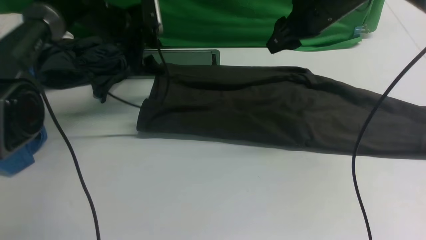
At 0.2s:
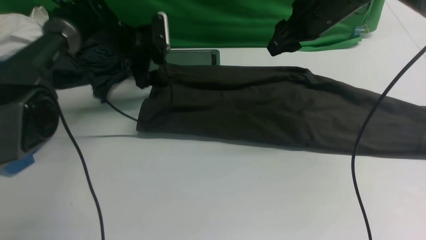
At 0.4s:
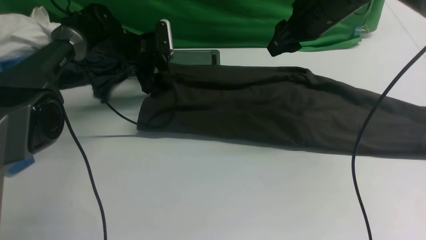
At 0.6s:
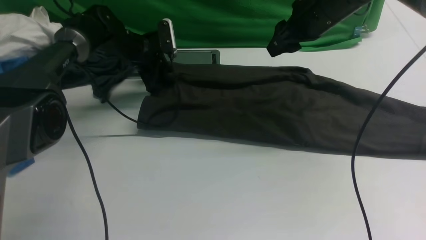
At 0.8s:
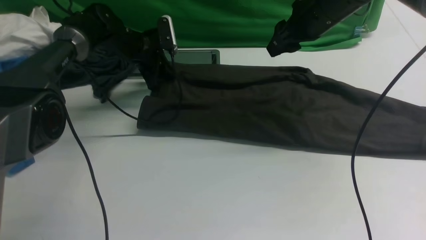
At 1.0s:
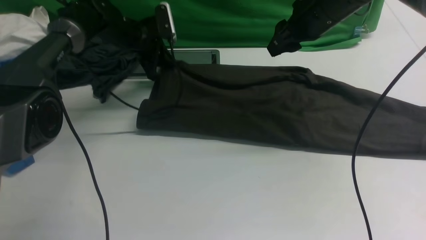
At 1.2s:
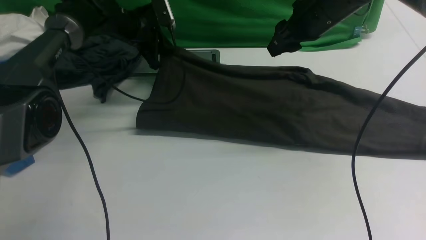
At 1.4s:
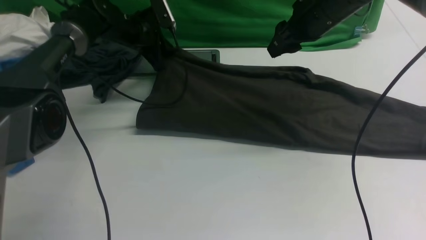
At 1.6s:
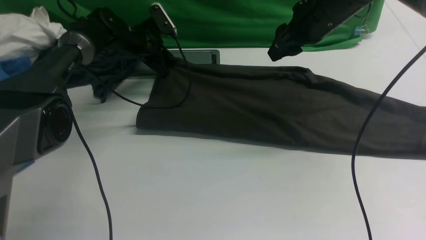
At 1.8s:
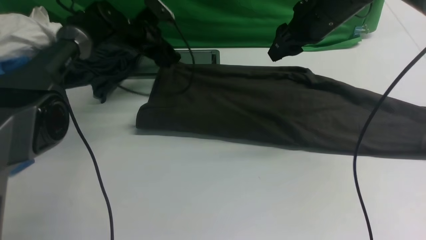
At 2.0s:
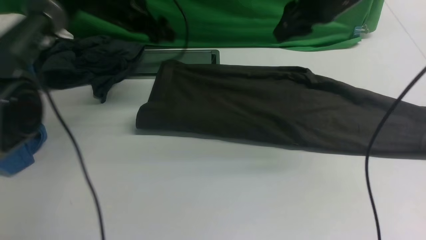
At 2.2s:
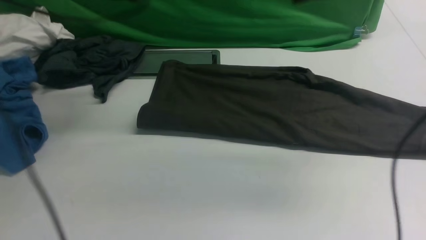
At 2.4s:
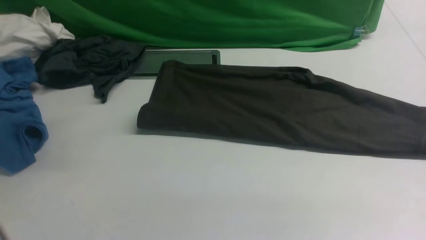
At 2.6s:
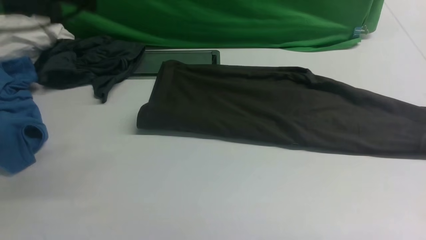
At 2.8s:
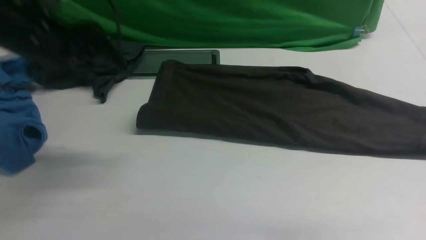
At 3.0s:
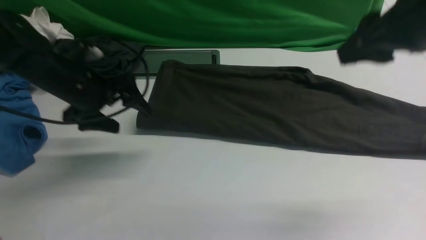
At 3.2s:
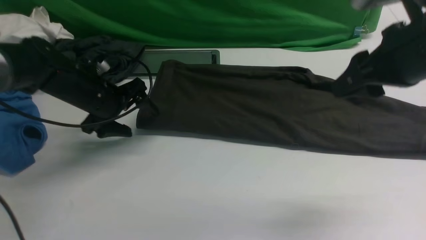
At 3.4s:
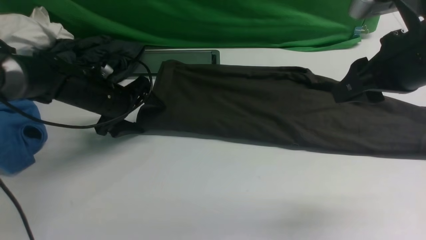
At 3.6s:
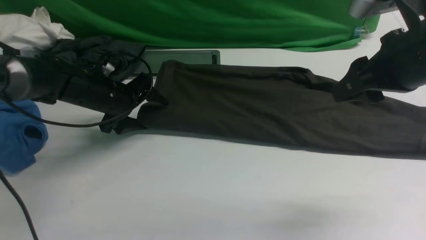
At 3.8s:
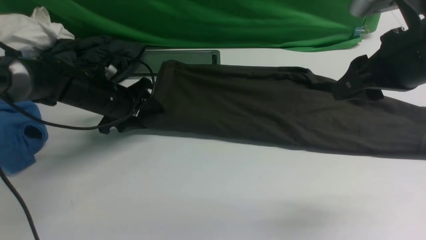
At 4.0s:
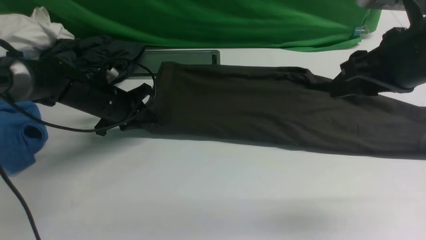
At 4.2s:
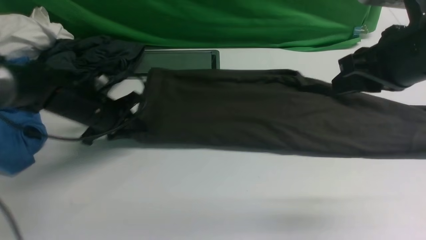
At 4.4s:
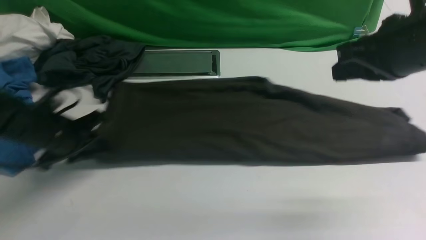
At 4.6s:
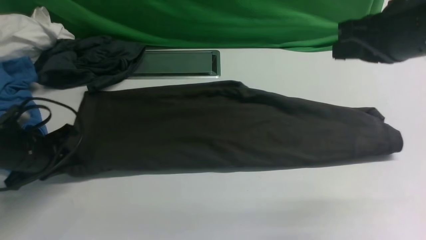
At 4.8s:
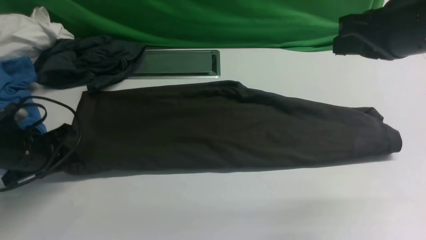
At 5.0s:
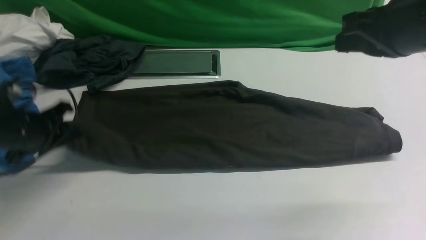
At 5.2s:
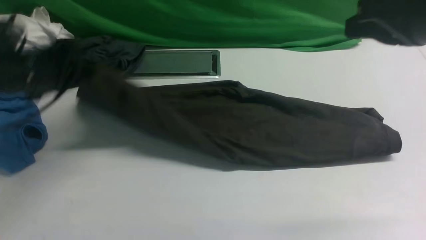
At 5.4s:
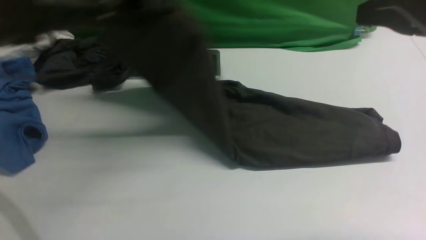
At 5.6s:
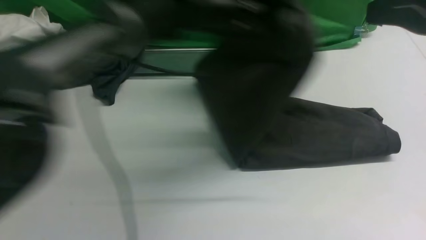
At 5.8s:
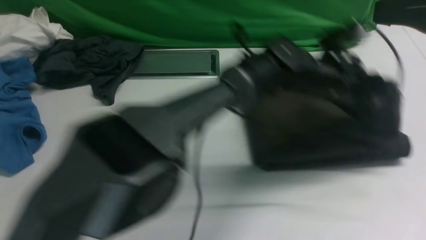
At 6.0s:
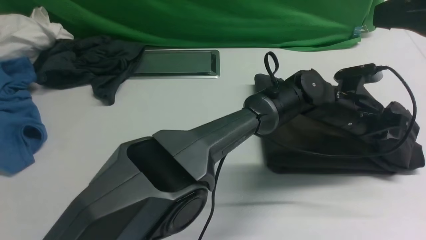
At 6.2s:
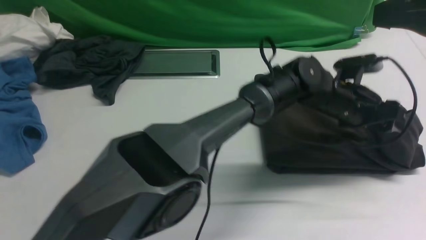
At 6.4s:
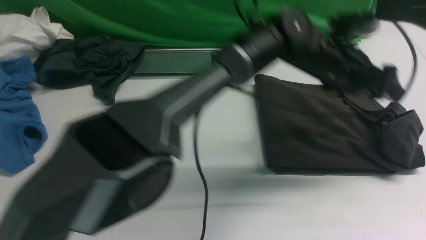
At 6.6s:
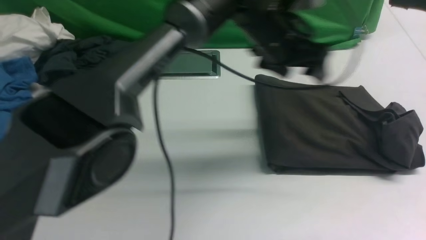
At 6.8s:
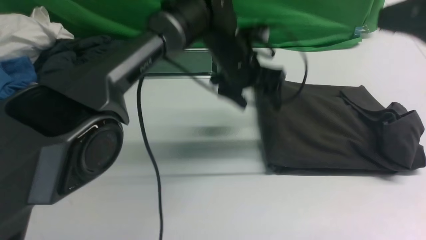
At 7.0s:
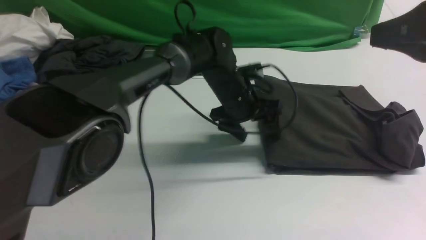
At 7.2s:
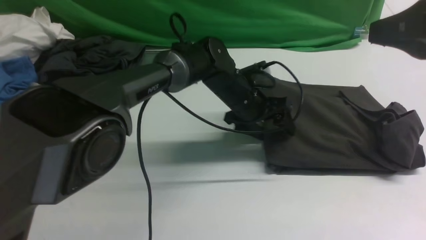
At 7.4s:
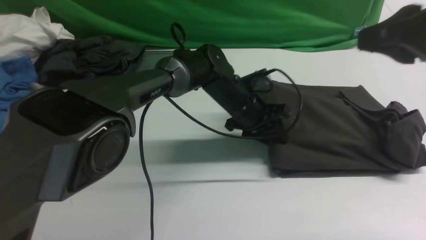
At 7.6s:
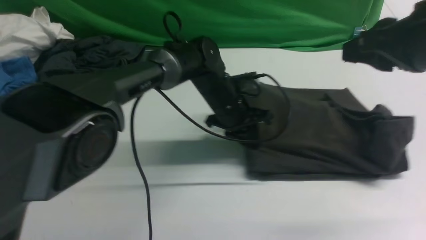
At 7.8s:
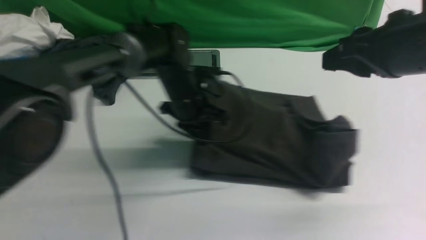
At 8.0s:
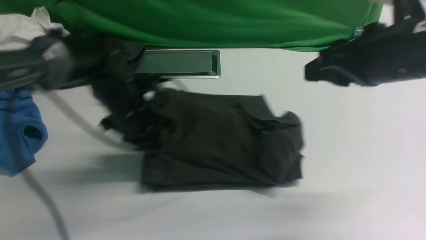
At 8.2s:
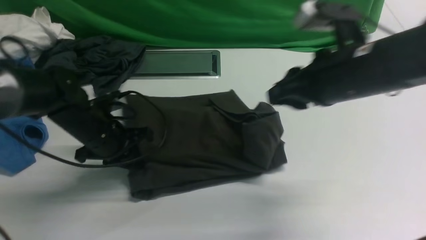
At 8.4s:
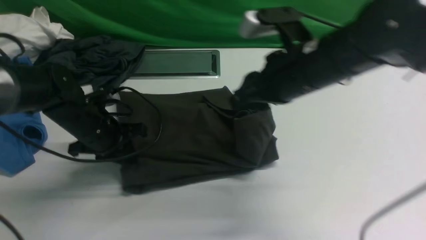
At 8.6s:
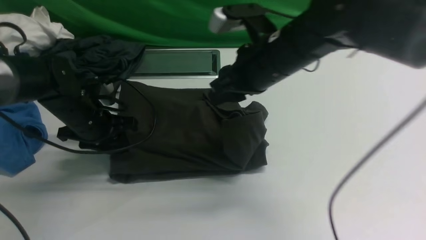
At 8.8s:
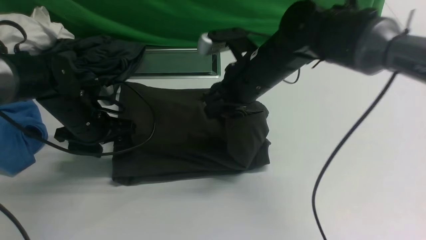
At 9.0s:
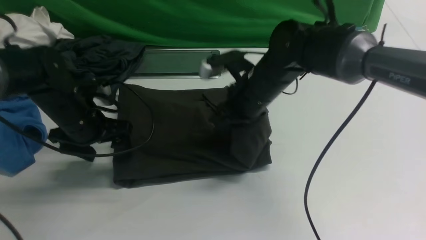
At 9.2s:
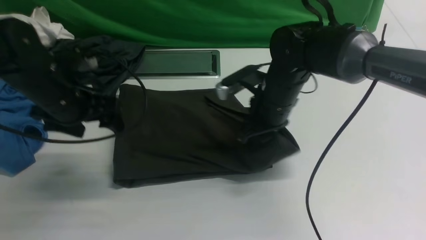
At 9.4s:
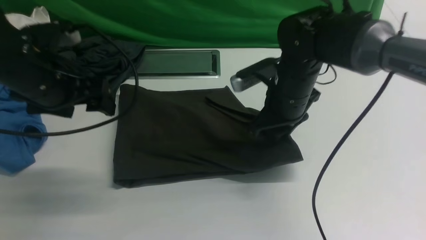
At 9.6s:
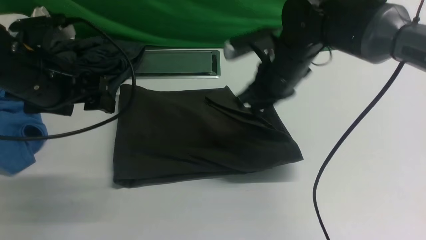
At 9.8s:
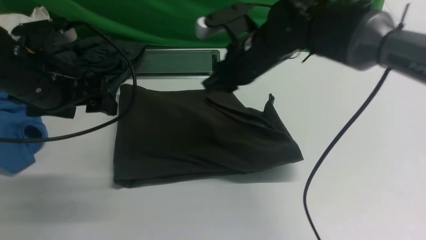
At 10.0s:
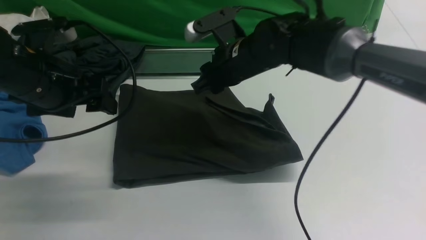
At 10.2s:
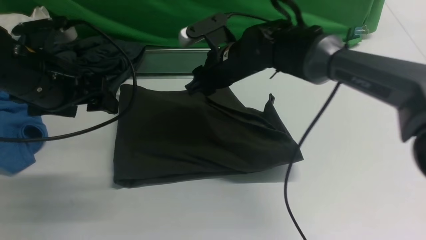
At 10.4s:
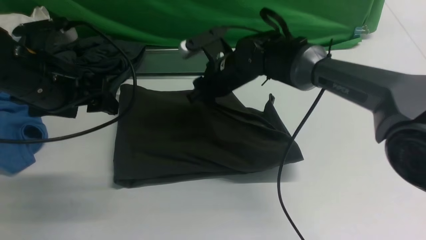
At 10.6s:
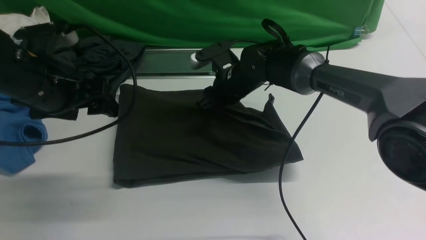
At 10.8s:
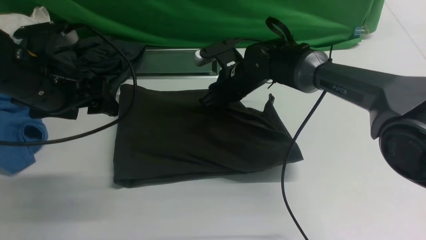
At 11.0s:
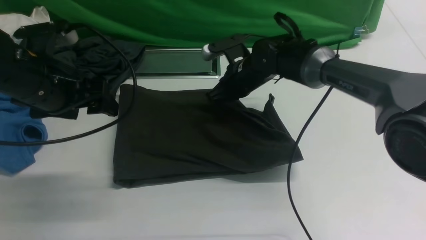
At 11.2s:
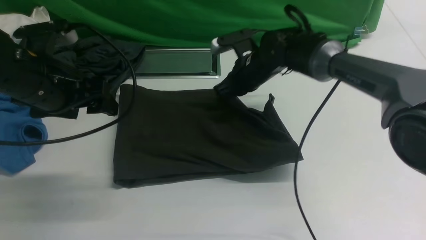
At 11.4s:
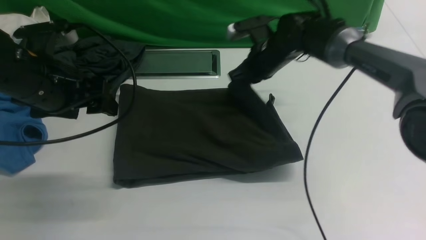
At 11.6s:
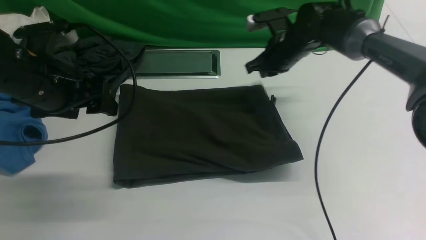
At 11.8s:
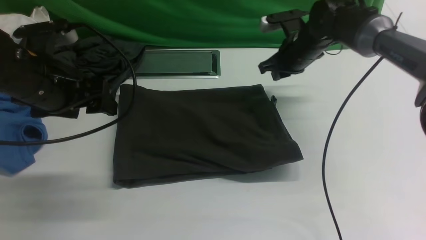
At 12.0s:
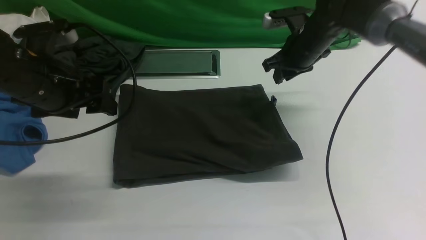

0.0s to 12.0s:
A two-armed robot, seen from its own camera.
Step, 2.2s to 4.2s: Hold the left edge of the fabric with your left arm.
Step, 4.4s to 9.6s: Drag the left edge of the fabric to the left with your left arm and fold it to the right edge.
0.0s to 1.6s: The left gripper shifts by roughly 5 cm, and closes.
1.6s to 3.0s: The right gripper moves backward and upward, approximately 20 cm; the left gripper goes approximately 20 cm backward, goes upward and returns, roughly 25 cm each way, and opens.
3.0s to 4.4s: The left gripper shifts about 10 cm downward and to the left, and closes. The right gripper closes its fingers.
4.4s to 6.0s: The left gripper is displaced to the right by approximately 50 cm; the right gripper heads upward and backward, covering approximately 10 cm.
6.0s to 7.6s: The right gripper shifts approximately 5 cm downward, and opens up. Meanwhile the left gripper is displaced to the left by roughly 20 cm, and opens, then closes once more.
7.6s to 9.0s: The right gripper heads downward, to the left and forward, covering roughly 25 cm; the left gripper moves to the left, some 20 cm, and opens its fingers.
9.0s to 10.4s: The right gripper moves forward, about 5 cm, while the left gripper travels upward by some 10 cm.
10.4s to 12.0s: The right gripper heads to the right, covering roughly 15 cm, and closes its fingers.

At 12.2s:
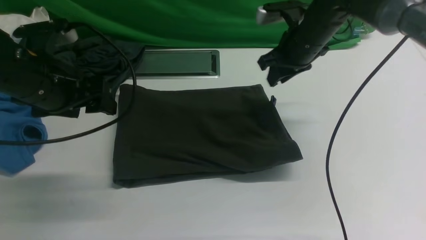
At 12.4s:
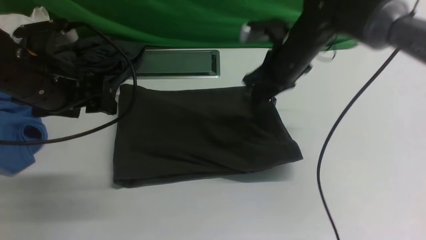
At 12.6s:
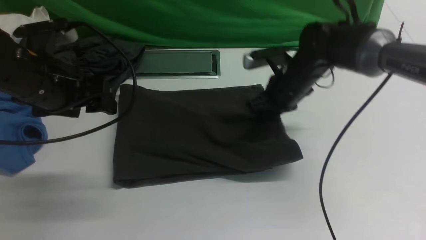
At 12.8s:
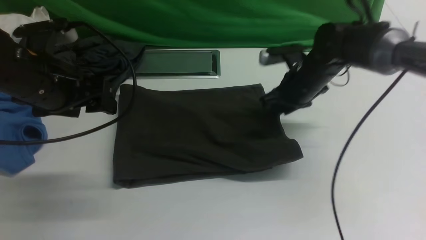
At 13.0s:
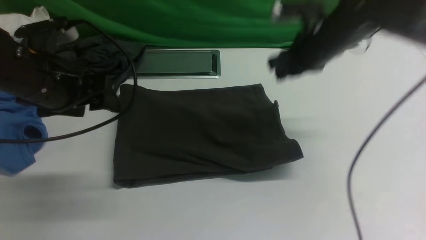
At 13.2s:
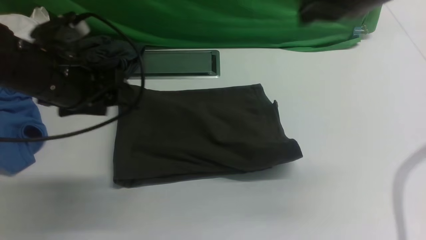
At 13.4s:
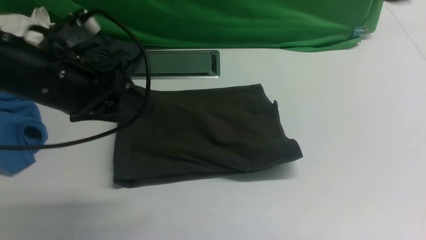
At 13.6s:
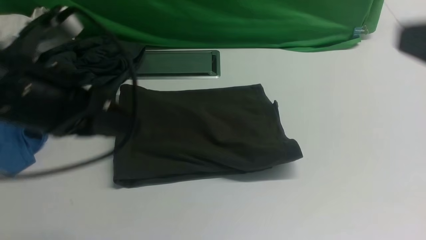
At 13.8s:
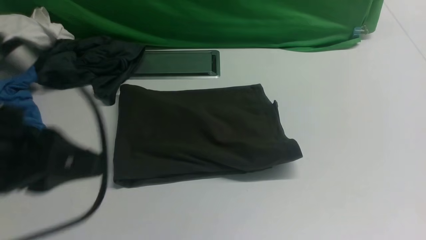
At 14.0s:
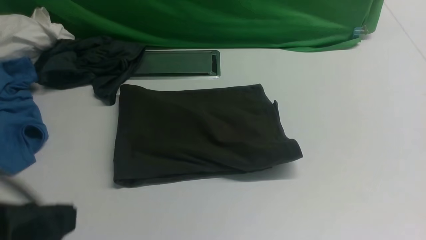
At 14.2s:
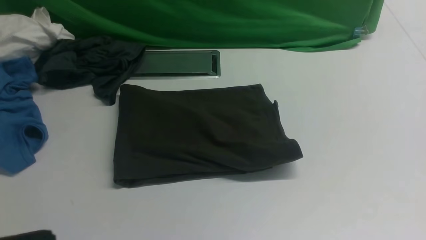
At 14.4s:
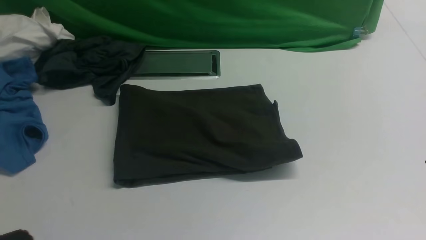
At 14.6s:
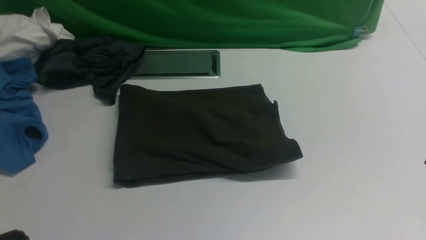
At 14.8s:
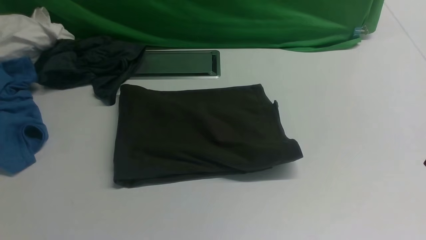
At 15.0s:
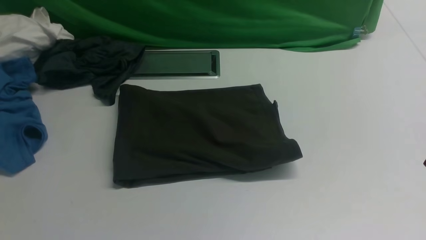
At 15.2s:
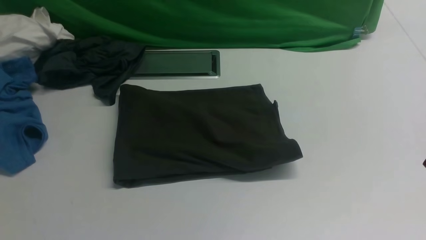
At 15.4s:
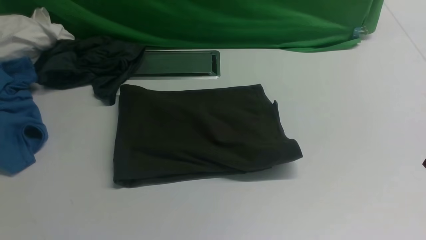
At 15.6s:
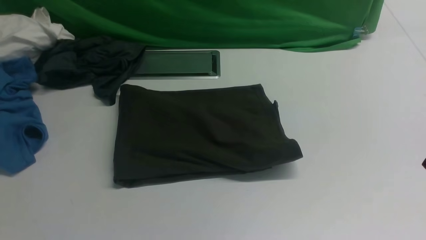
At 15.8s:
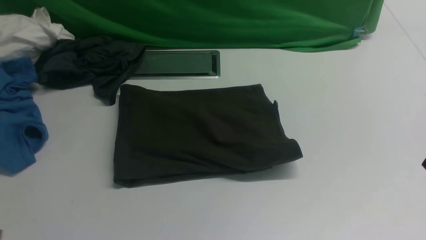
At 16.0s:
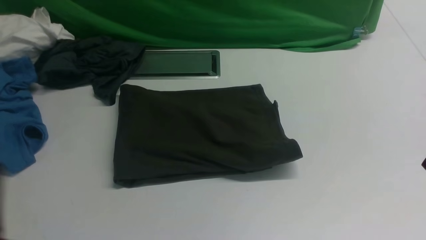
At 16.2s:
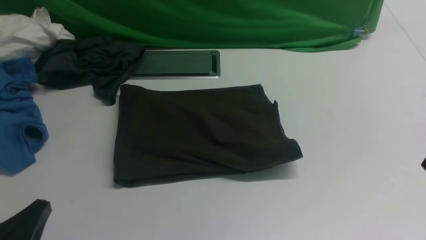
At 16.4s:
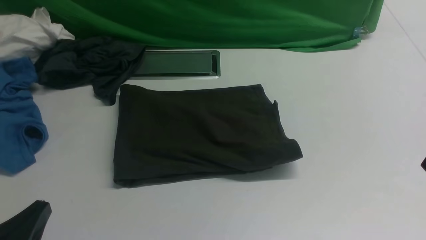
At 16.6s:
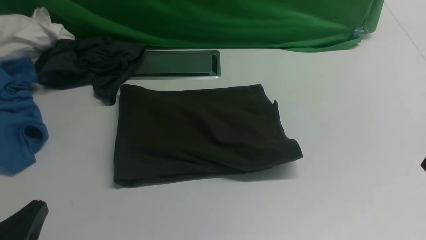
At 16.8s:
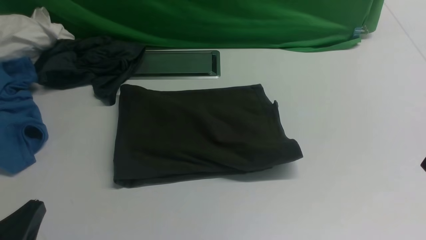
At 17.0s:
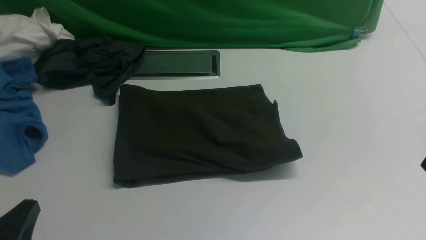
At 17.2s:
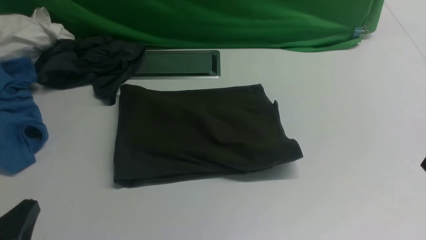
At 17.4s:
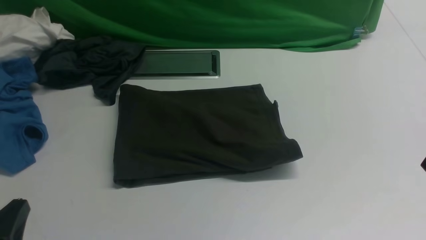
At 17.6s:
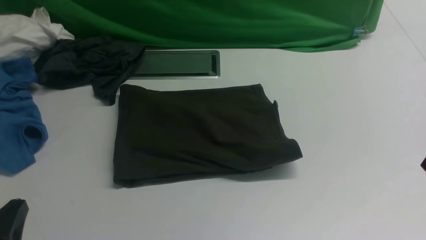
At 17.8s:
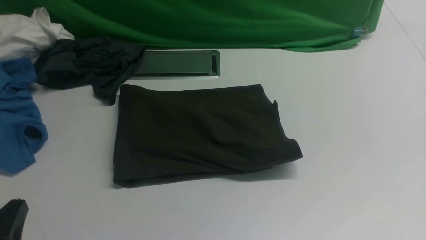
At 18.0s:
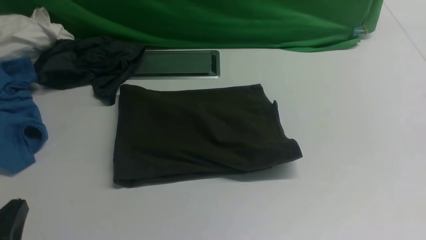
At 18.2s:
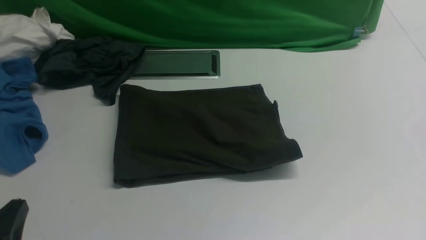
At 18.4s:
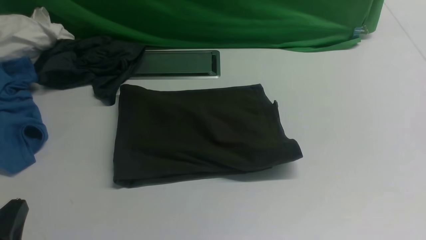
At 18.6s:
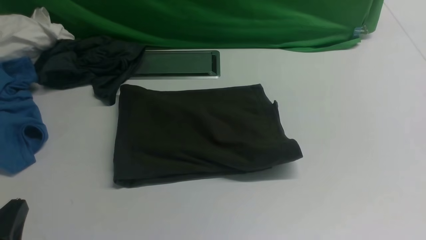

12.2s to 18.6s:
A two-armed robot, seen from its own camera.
12.2s to 13.8s: The left gripper moves backward, approximately 15 cm, and closes up, while the right gripper is displaced backward by some 35 cm, and closes its fingers.
13.8s to 15.4s: The left gripper shifts some 10 cm backward and downward.
15.4s to 17.0s: The left gripper shifts roughly 10 cm downward.
